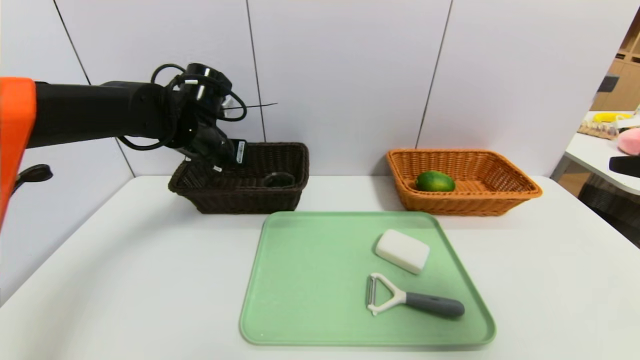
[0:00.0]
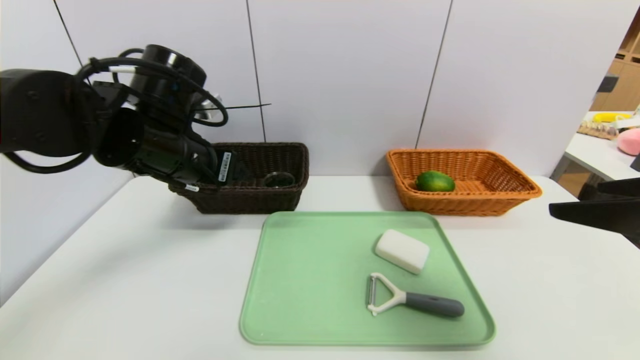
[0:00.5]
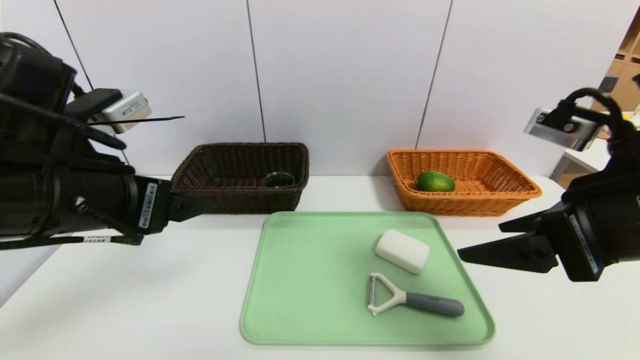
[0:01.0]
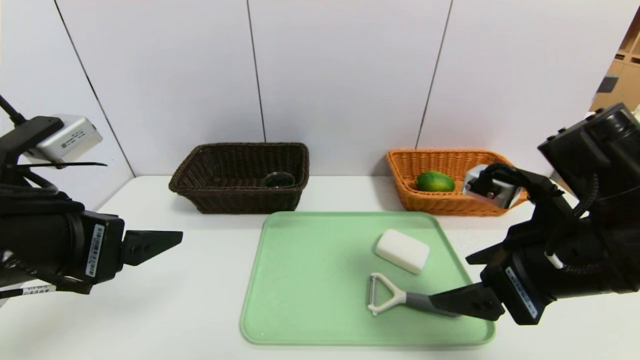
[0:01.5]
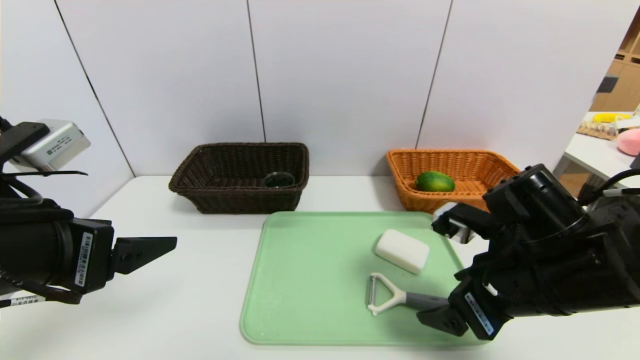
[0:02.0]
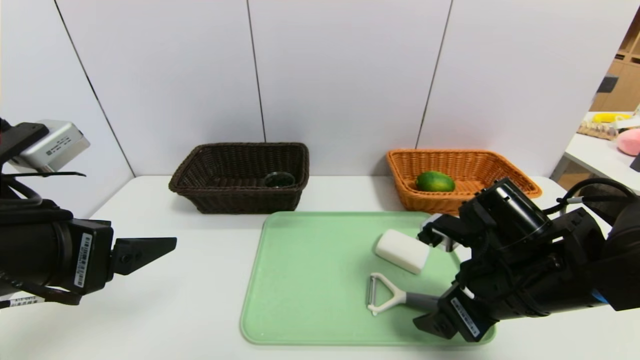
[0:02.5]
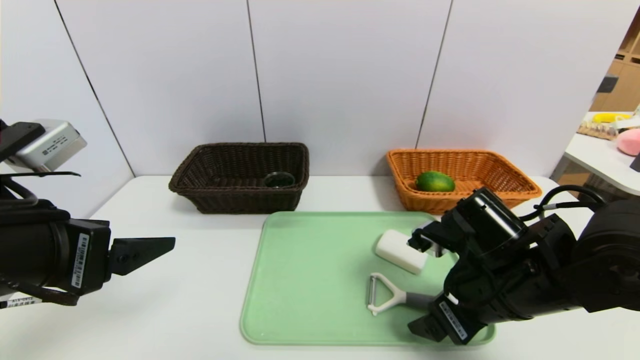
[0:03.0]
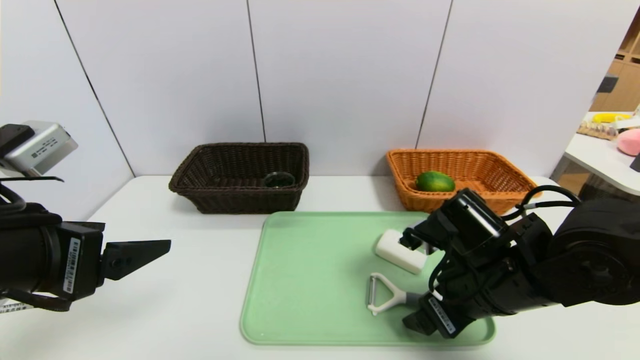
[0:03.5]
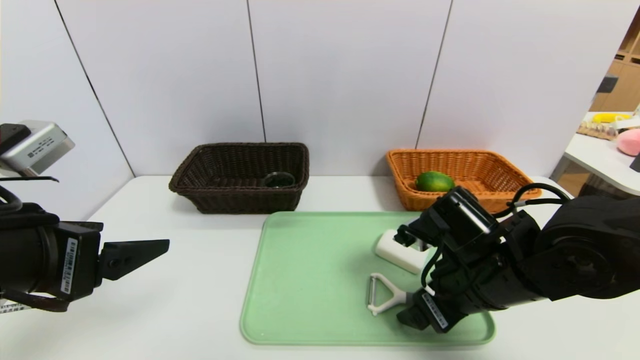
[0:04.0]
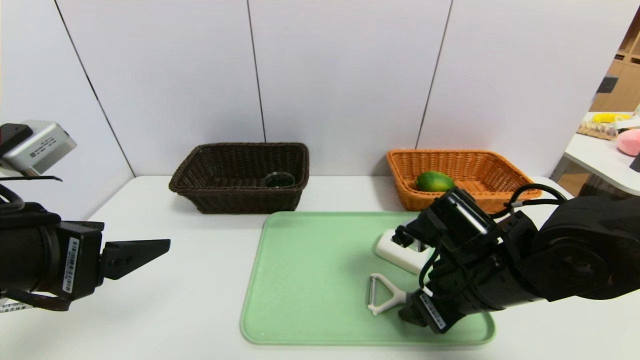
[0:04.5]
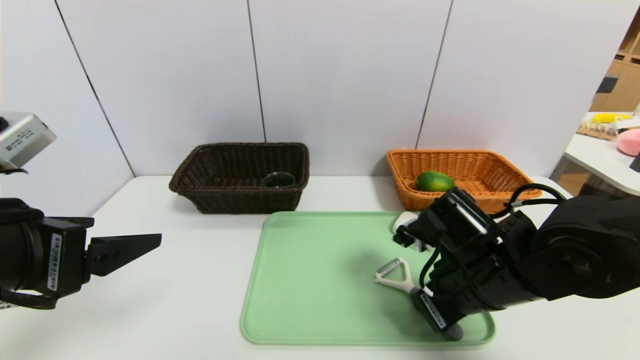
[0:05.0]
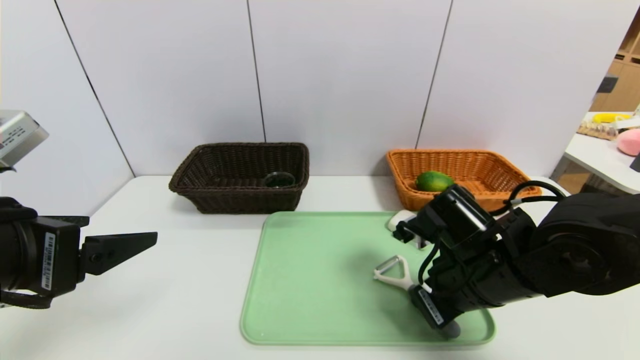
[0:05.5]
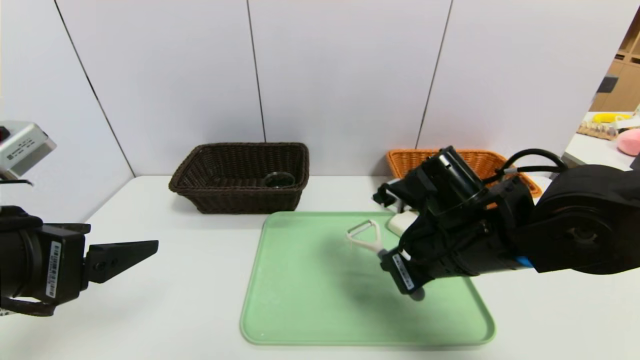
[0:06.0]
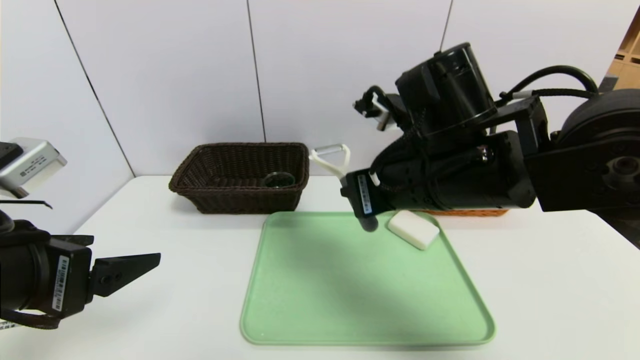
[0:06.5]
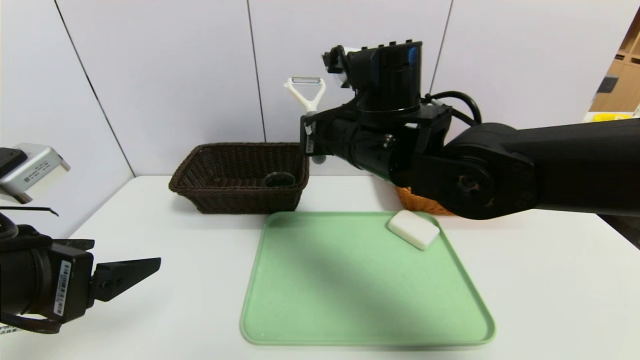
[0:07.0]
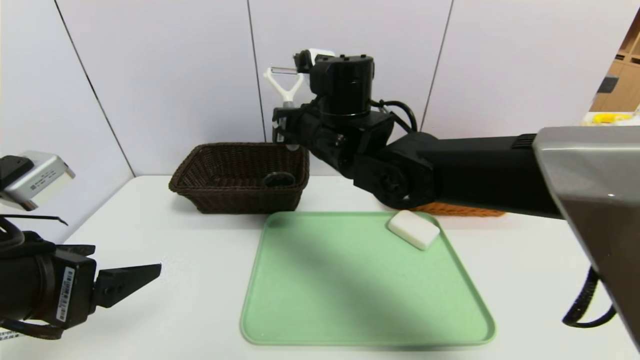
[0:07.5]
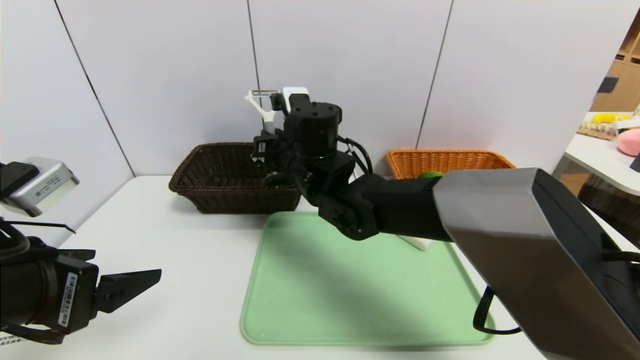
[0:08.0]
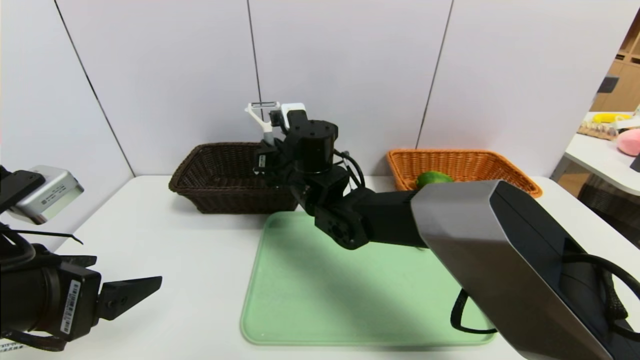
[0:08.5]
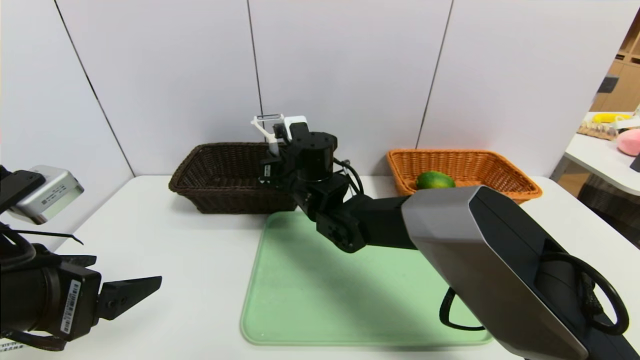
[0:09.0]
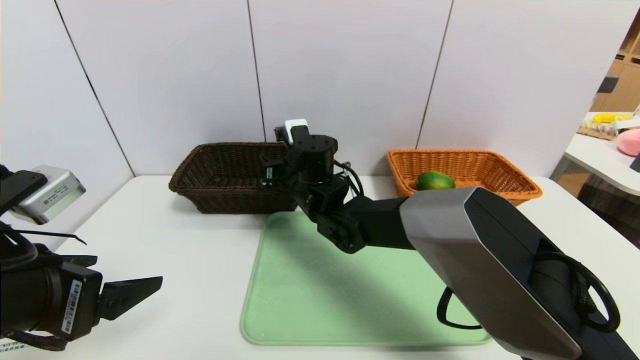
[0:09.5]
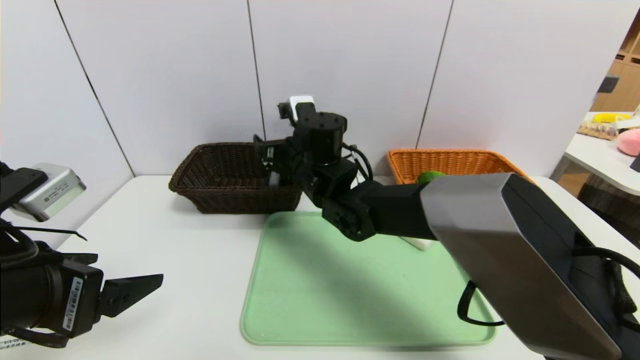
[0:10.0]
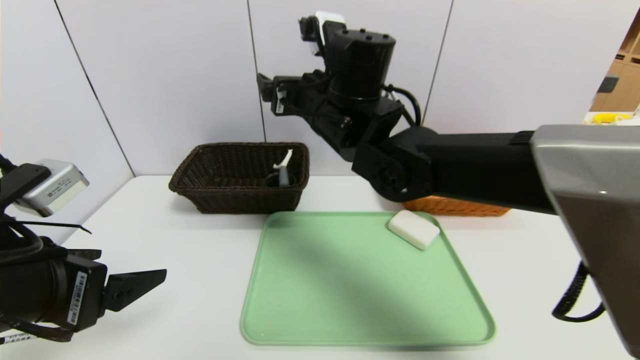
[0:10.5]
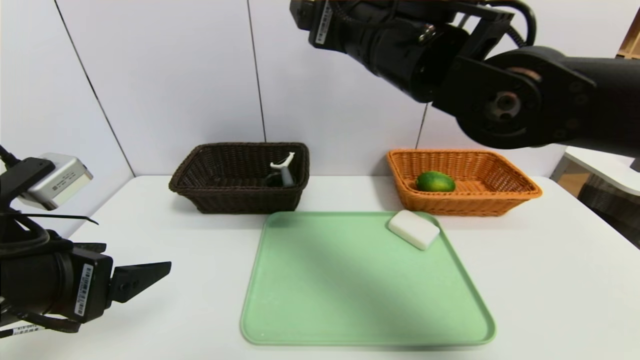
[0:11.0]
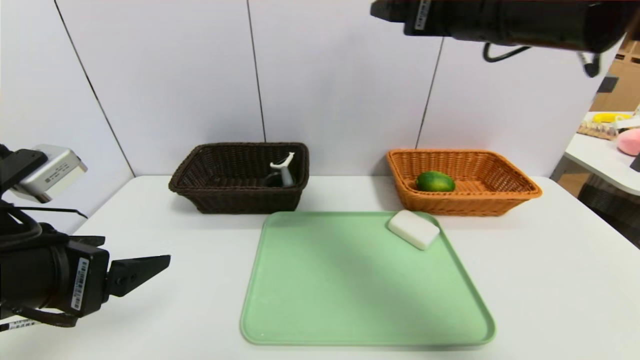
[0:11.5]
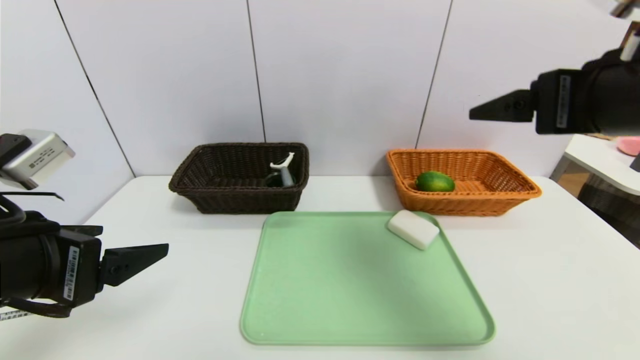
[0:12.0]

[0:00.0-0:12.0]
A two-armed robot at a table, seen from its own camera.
Task of the whole recording: place the food in the right basket with the right gripper, and place the non food items in the left basket with the left gripper.
Step, 0:00.0 to 0:09.5: Grasp the peeler and put it in the left basket.
0:00.0 to 0:02.0: The right gripper goes some 20 cm downward, forward and to the left. Meanwhile the left gripper goes some 25 cm backward.
0:02.0 to 0:04.0: The right gripper shifts by about 5 cm.
0:04.0 to 0:06.0: The right gripper shifts by approximately 5 cm, and closes its fingers.
0:06.0 to 0:08.0: The right gripper heads to the left and forward, covering some 20 cm.
0:08.0 to 0:10.0: The right gripper opens up.
0:10.0 to 0:12.0: The right gripper travels to the right, backward and upward by approximately 35 cm.

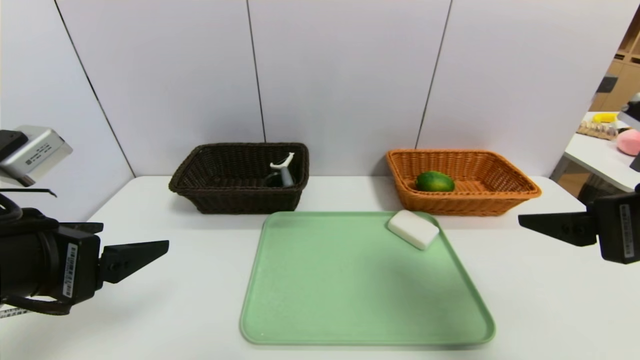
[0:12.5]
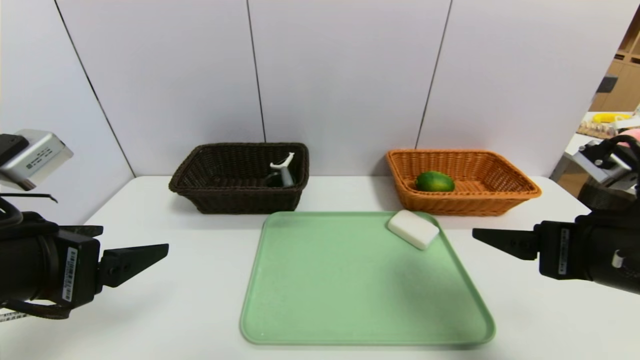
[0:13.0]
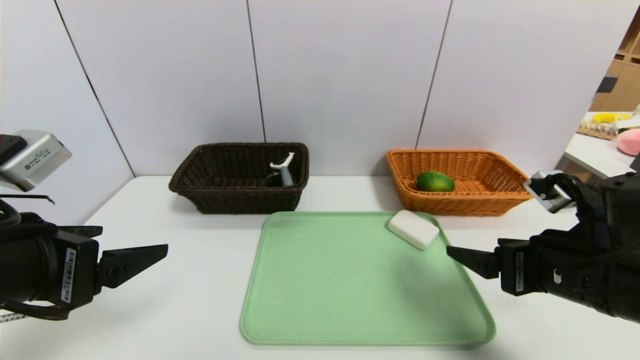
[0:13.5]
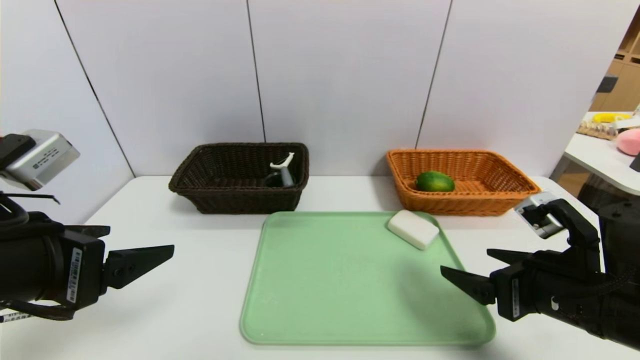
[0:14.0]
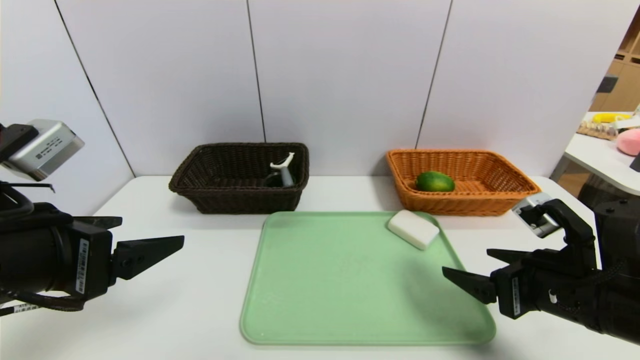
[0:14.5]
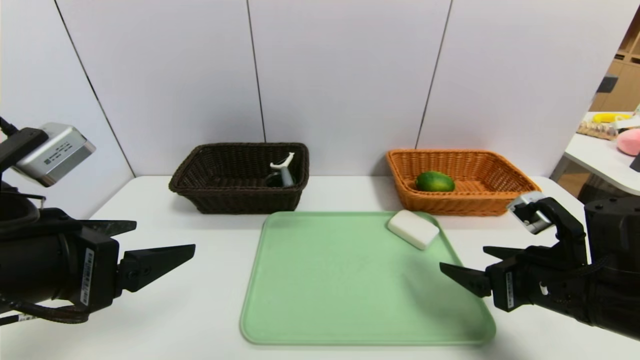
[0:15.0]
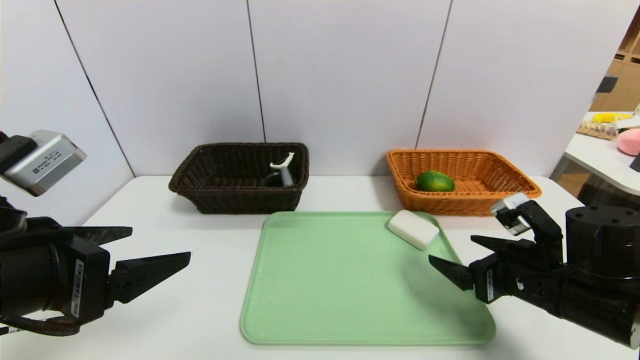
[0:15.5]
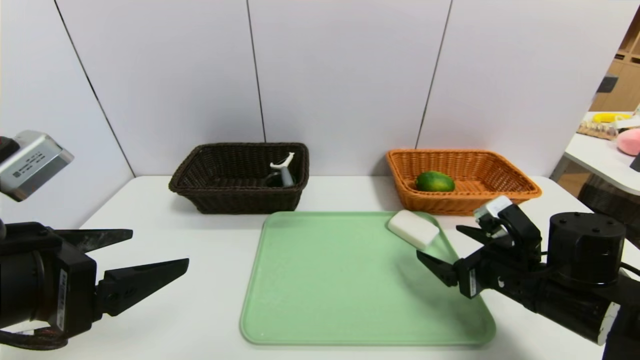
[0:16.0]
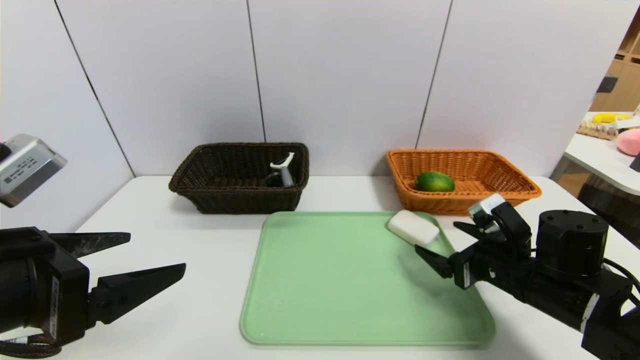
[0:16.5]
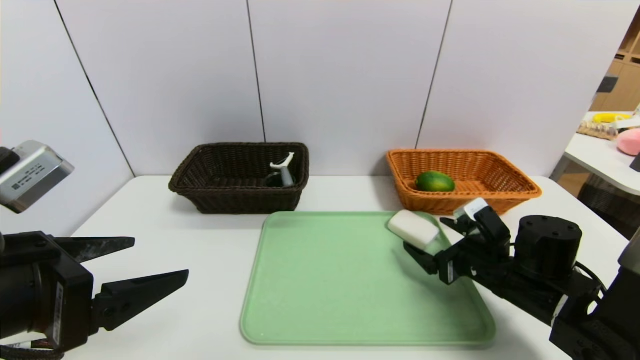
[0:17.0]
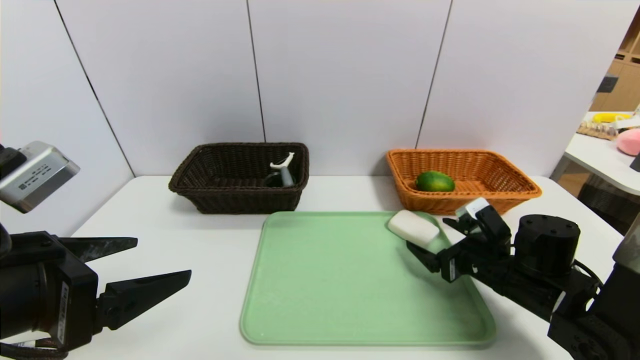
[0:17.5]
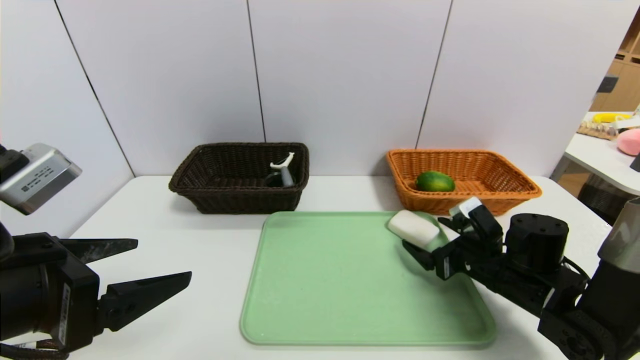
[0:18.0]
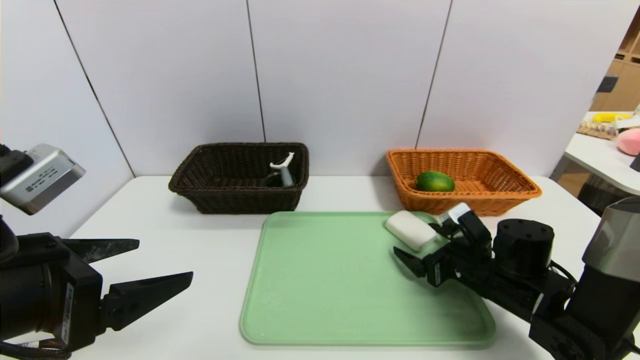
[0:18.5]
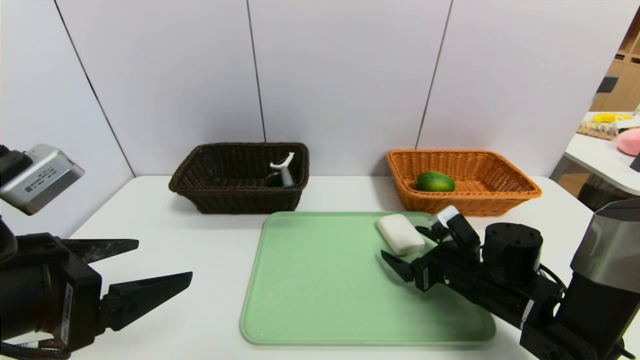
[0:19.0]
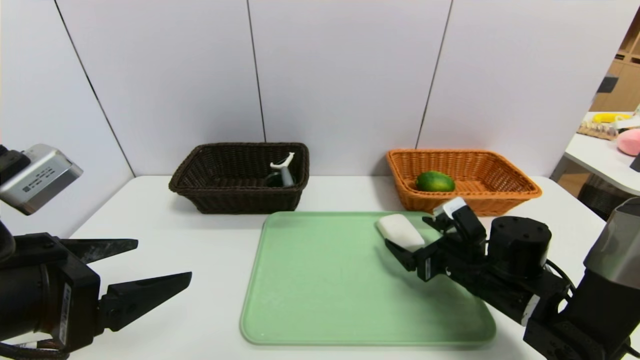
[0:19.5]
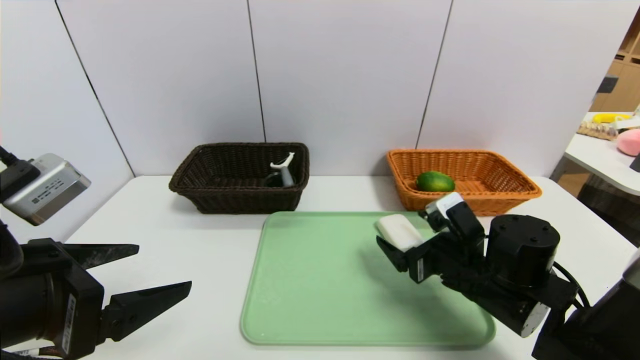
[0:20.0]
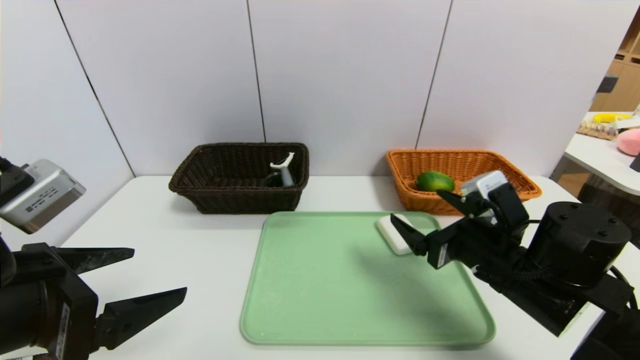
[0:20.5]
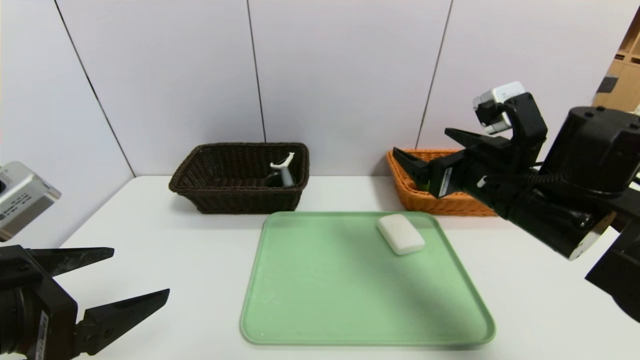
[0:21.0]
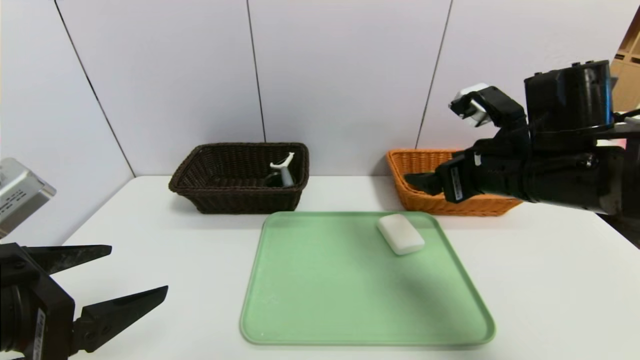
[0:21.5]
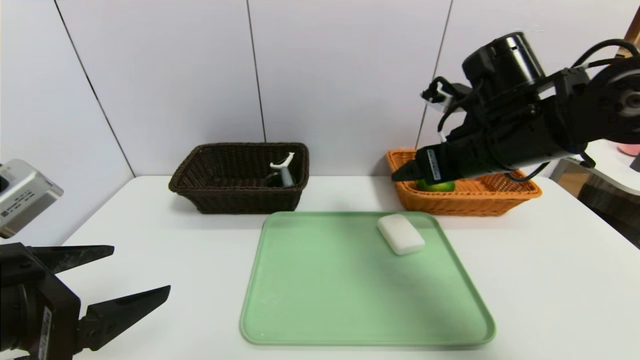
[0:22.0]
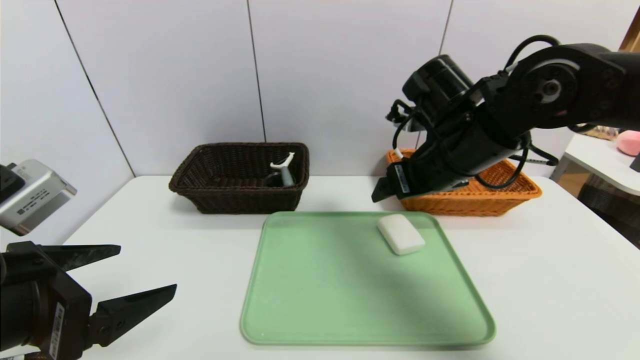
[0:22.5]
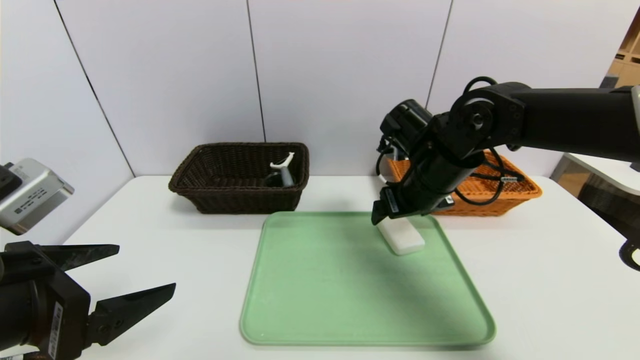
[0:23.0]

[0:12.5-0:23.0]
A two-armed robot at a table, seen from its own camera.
Task of the whole recording: place the food in the right basket with the right gripper, and place the non food items in the left basket with the left gripper.
0:12.5 to 0:14.5: The right gripper moves downward, approximately 15 cm.
0:14.5 to 0:16.5: The right gripper goes roughly 10 cm forward and downward.
0:16.5 to 0:19.0: The right gripper moves roughly 5 cm.
0:19.0 to 0:21.0: The right gripper goes approximately 15 cm upward.
0:21.0 to 0:23.0: The right gripper moves forward and to the left, some 10 cm.
